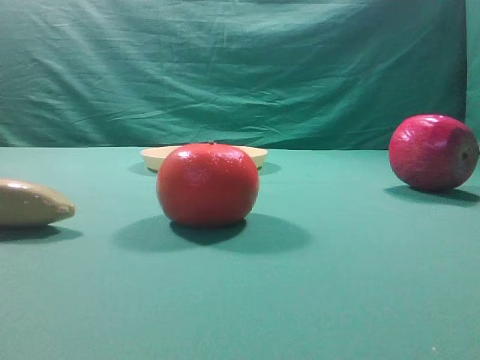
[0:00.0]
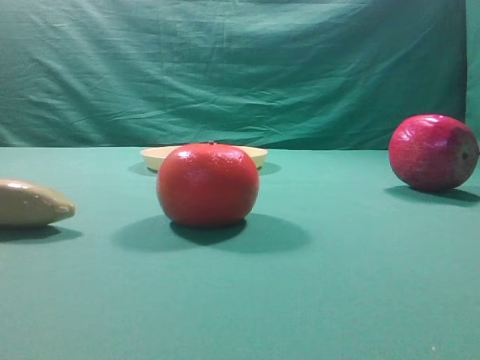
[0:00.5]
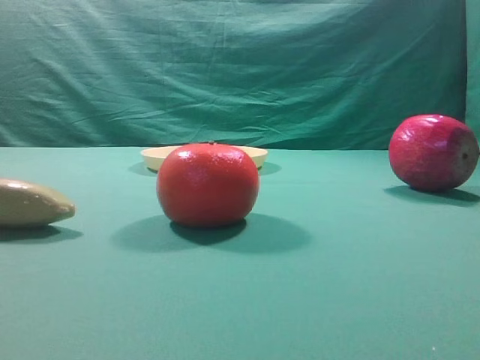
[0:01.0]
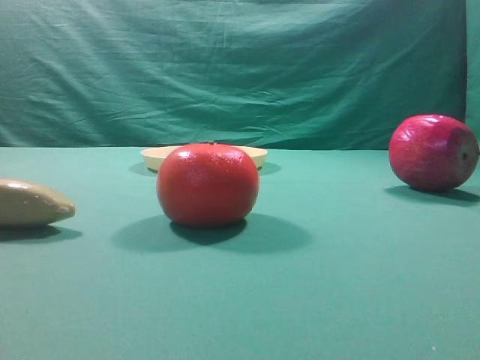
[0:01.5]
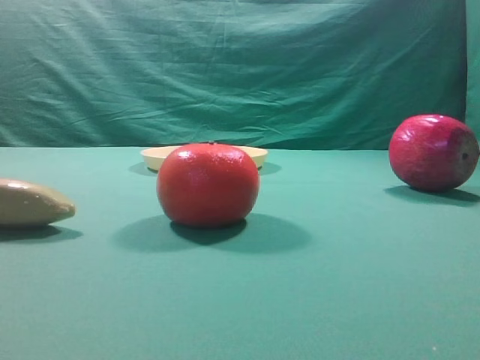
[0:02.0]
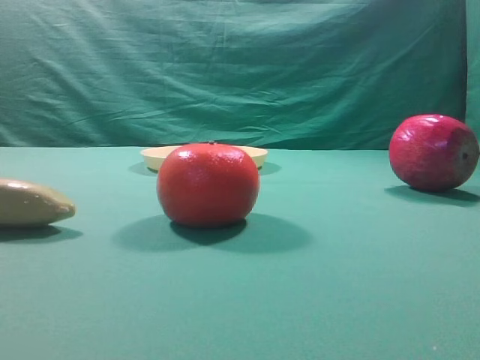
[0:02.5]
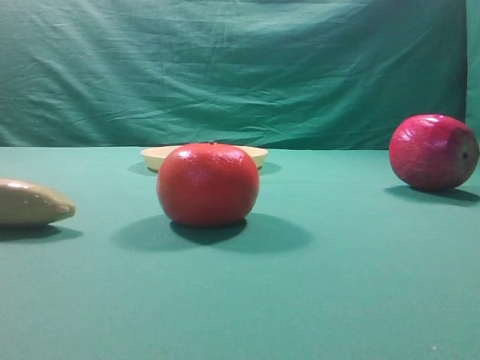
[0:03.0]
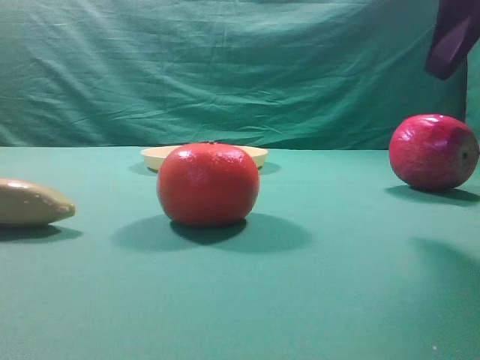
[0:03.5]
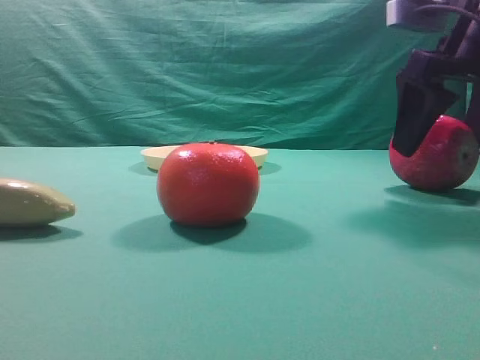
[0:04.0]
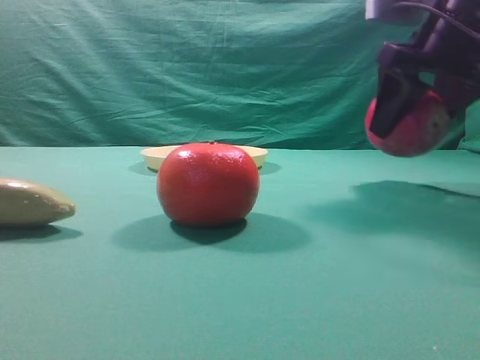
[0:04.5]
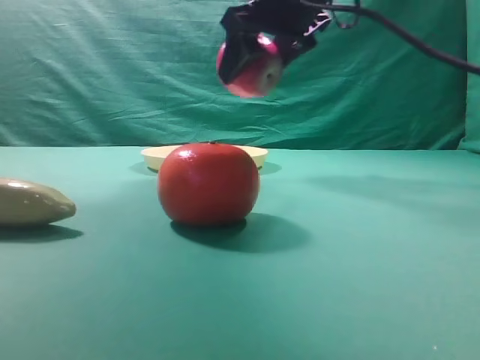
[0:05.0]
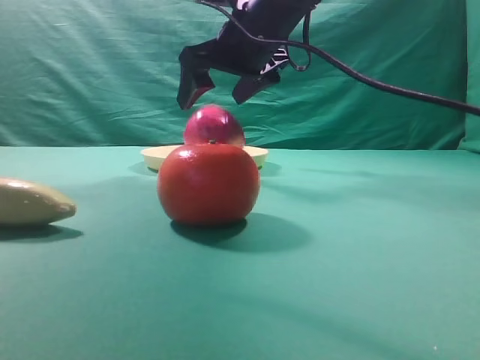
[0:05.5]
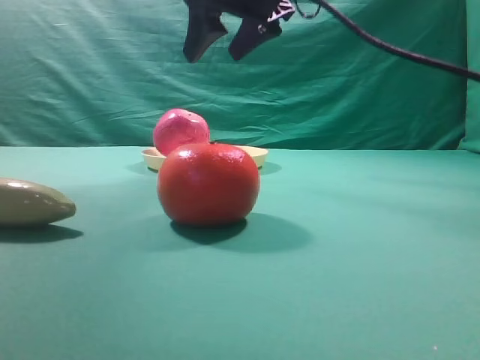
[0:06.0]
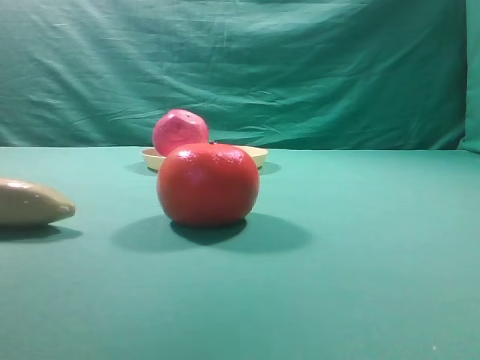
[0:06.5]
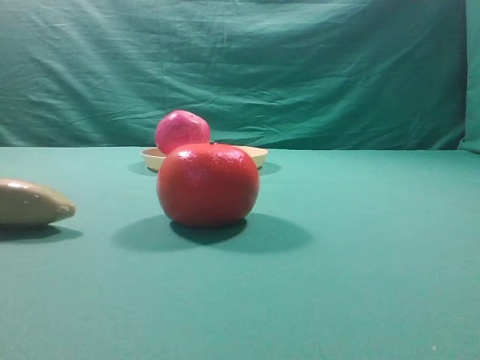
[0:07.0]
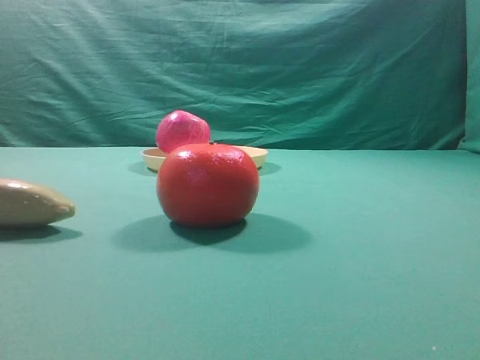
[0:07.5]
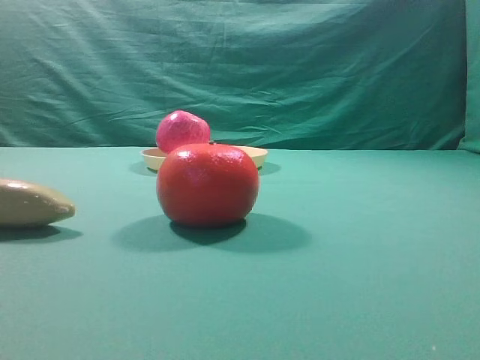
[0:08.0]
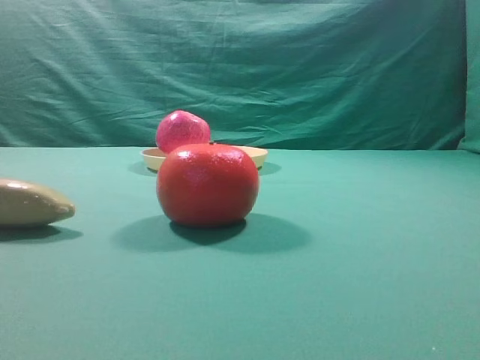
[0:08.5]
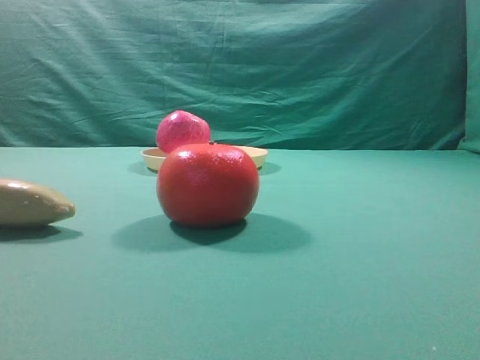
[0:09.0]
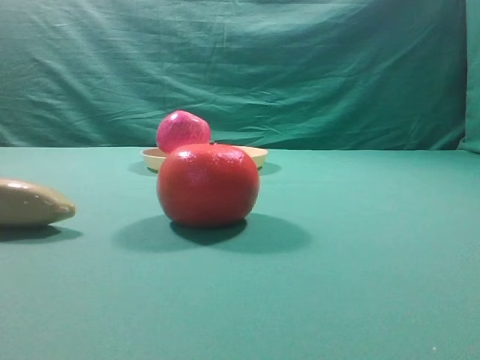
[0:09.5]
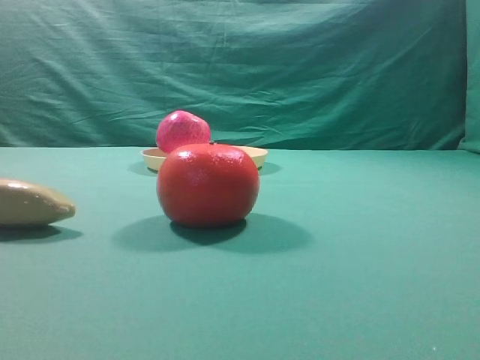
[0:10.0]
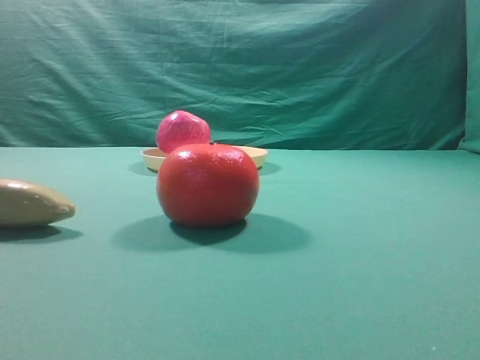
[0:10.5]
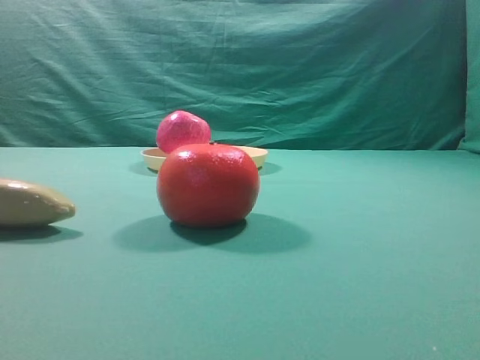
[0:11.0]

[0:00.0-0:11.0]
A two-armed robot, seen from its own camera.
Task of the whole recording: grasp the apple and place it into the yellow plate.
Step, 0:00.0 to 0:04.0: Grasp the fruit that can keep the doctor away.
Step, 0:05.0 to 0:05.5: Place the picked object into the yellow plate.

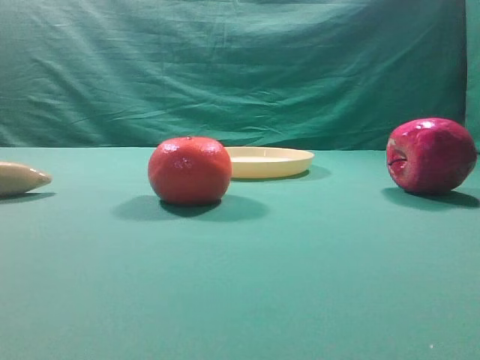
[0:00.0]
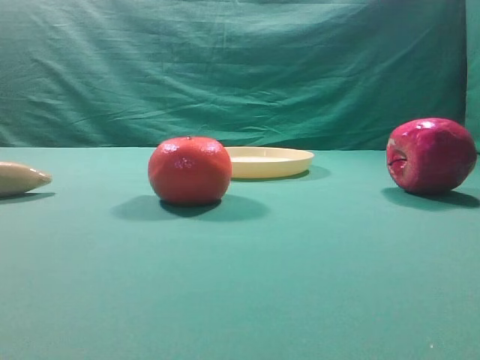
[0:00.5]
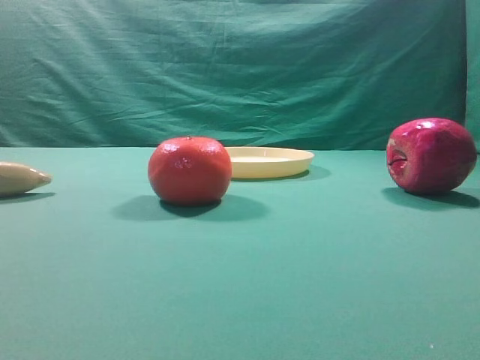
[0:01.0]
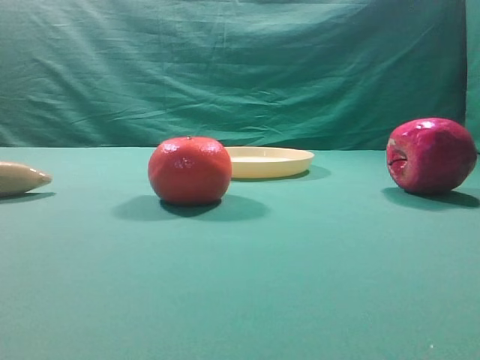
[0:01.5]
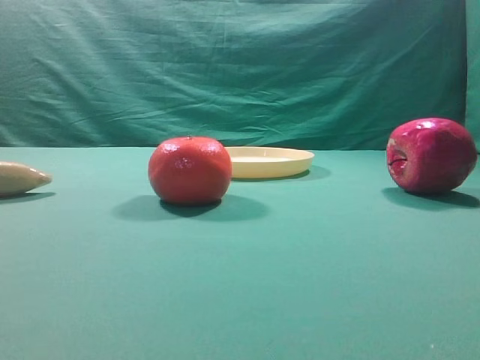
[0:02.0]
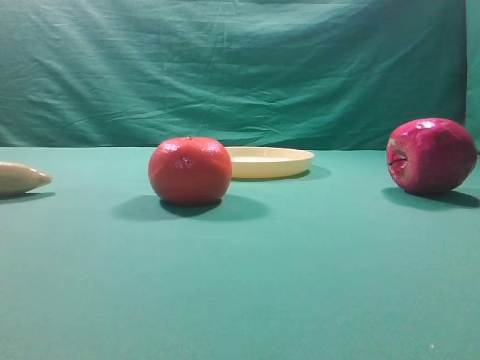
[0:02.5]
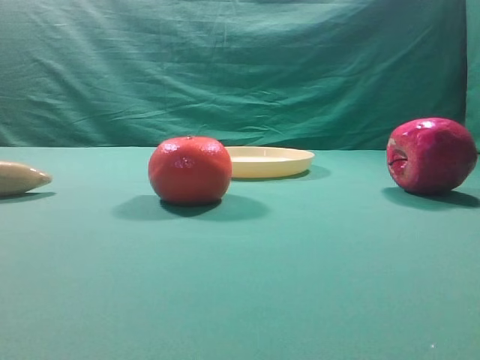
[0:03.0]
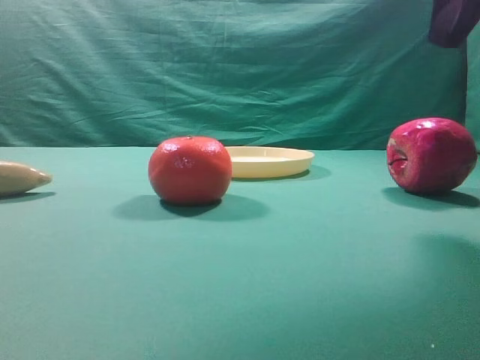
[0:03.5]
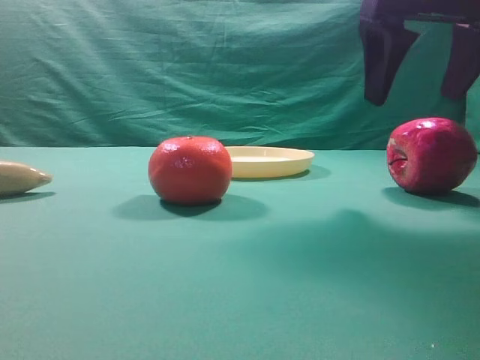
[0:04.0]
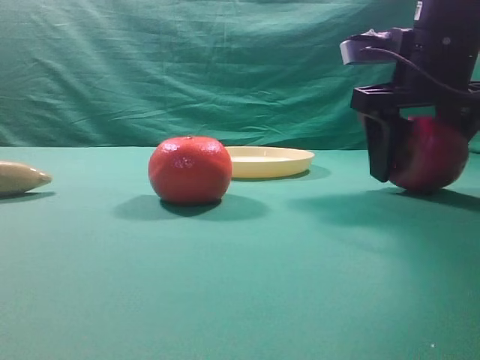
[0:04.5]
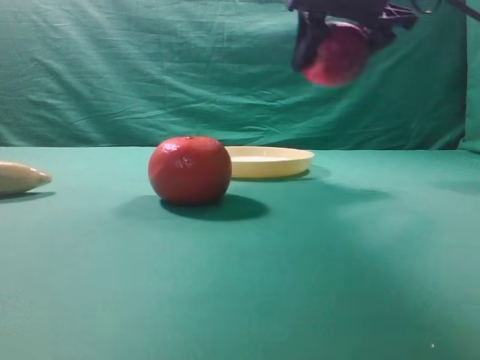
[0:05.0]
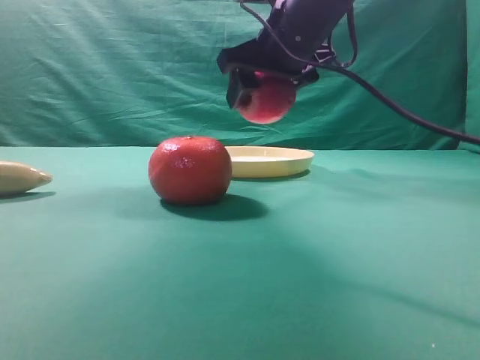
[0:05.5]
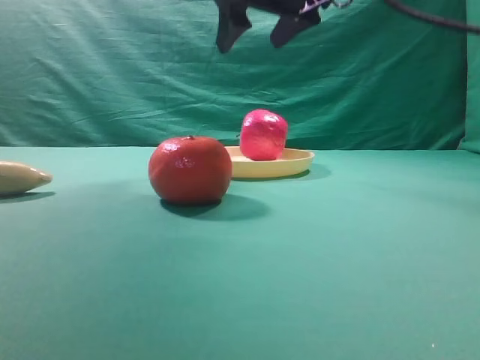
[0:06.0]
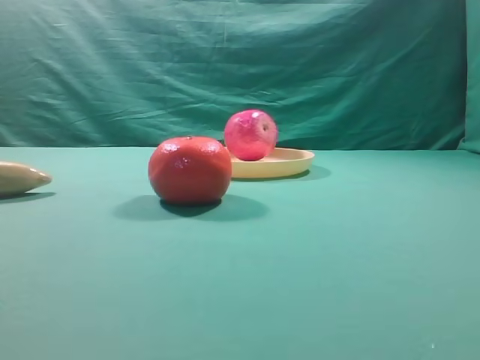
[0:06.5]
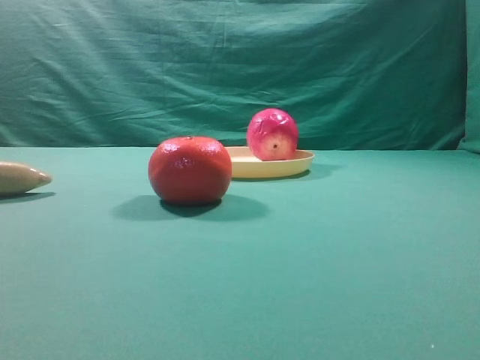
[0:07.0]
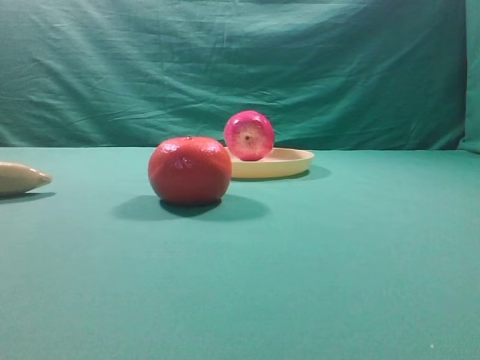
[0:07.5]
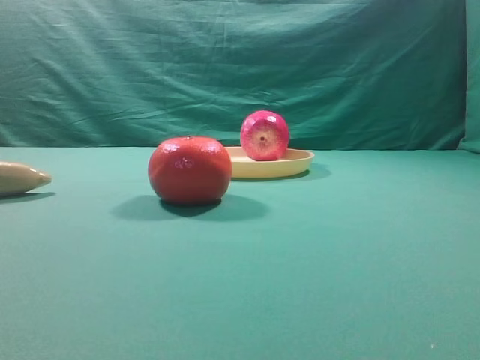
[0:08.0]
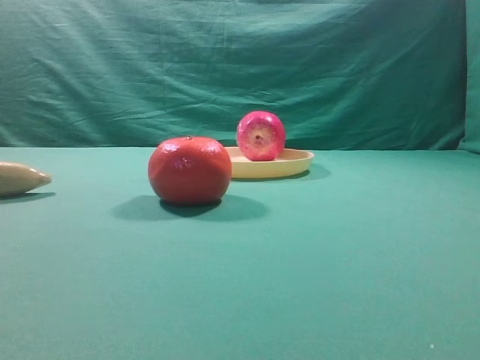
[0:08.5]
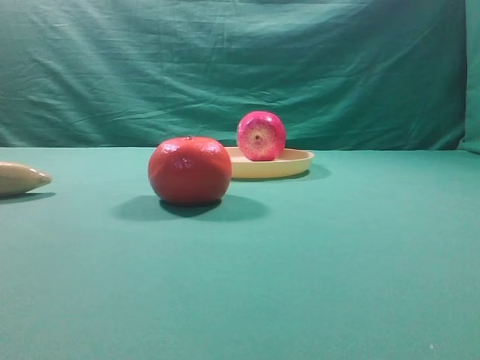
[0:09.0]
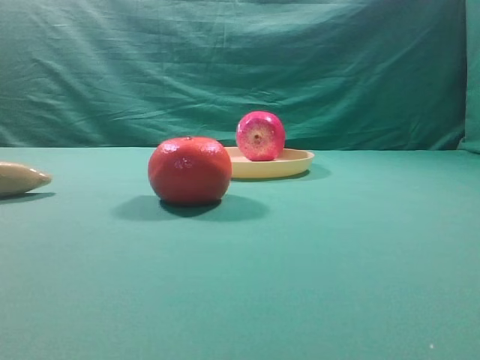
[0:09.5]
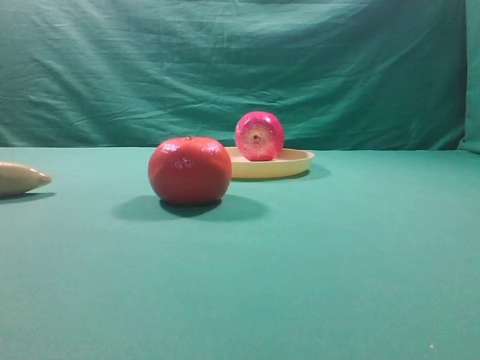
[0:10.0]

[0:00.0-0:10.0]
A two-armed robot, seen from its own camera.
Task of the whole recording: grasp the apple and place it into the yellow plate.
Step, 0:00.0 to 0:04.5: Grasp the fruit that can keep the doctor away.
Step, 0:05.0 to 0:05.5: Place the picked object into the yellow plate.

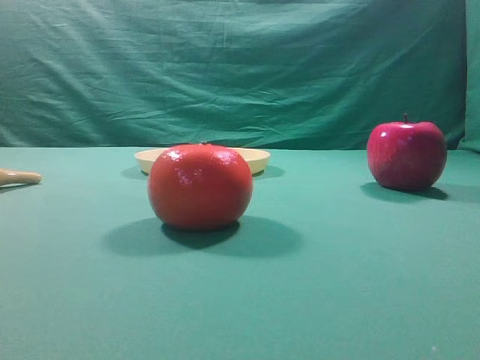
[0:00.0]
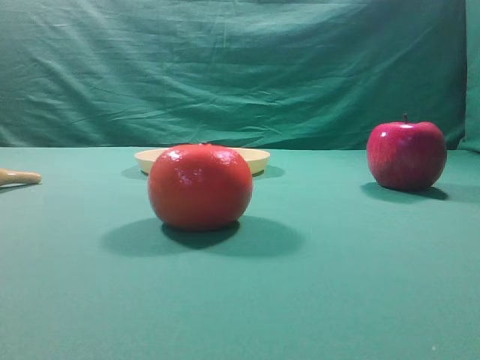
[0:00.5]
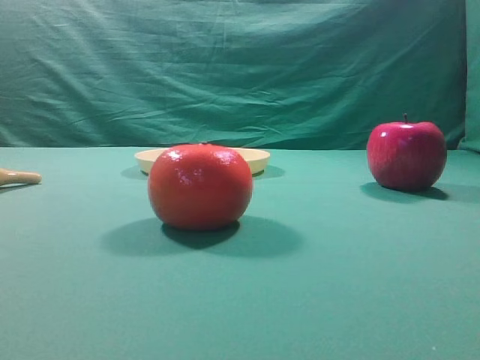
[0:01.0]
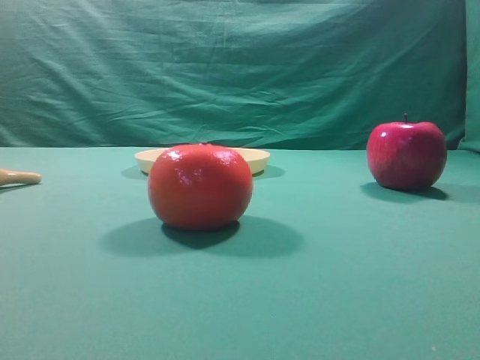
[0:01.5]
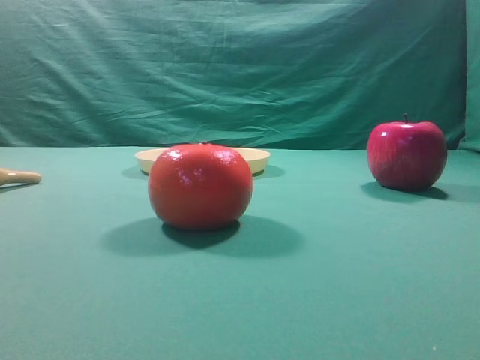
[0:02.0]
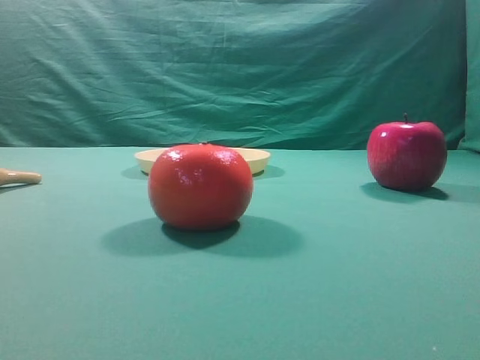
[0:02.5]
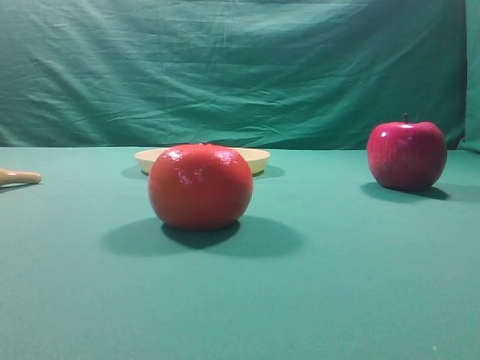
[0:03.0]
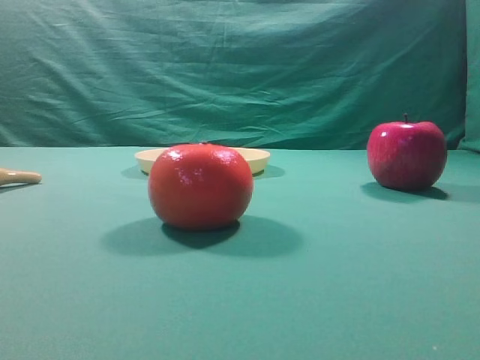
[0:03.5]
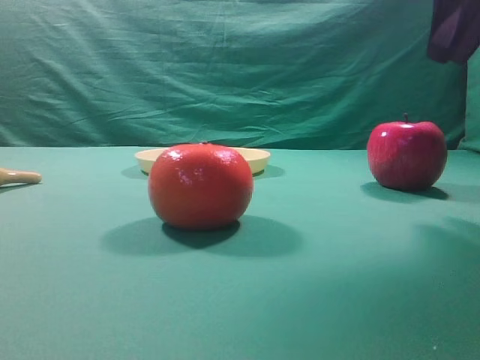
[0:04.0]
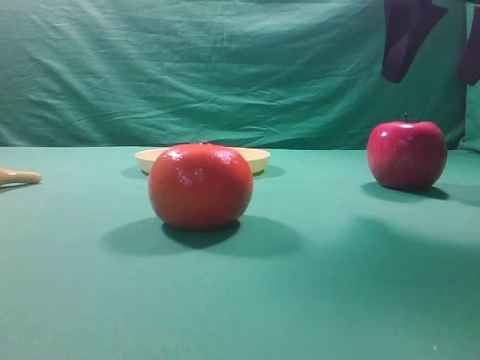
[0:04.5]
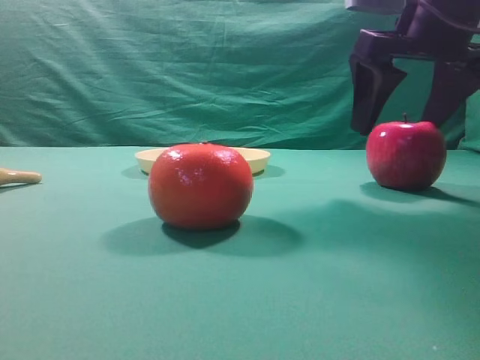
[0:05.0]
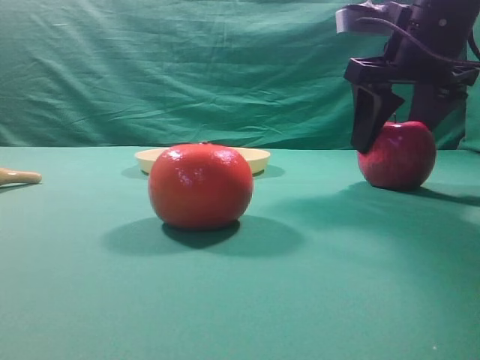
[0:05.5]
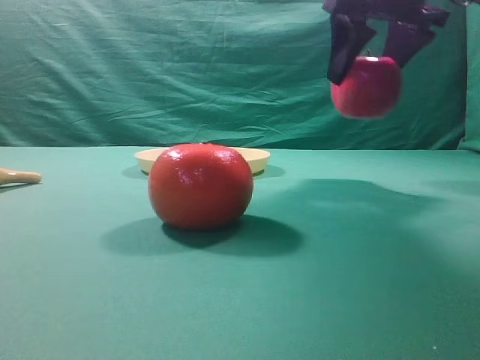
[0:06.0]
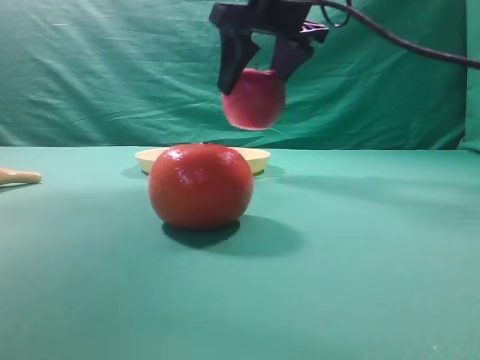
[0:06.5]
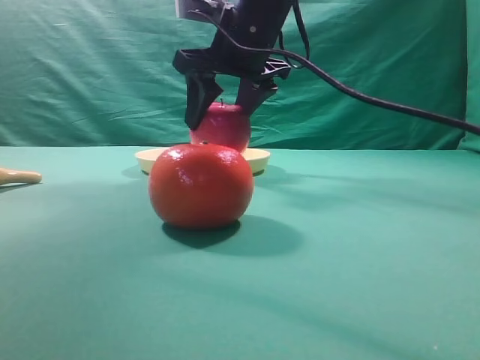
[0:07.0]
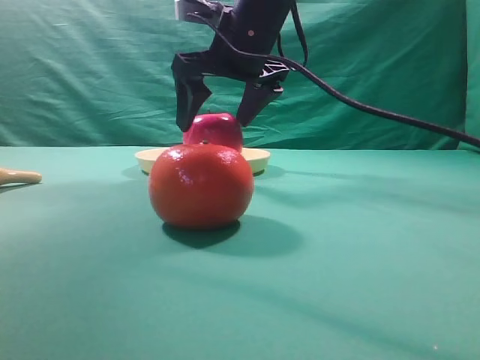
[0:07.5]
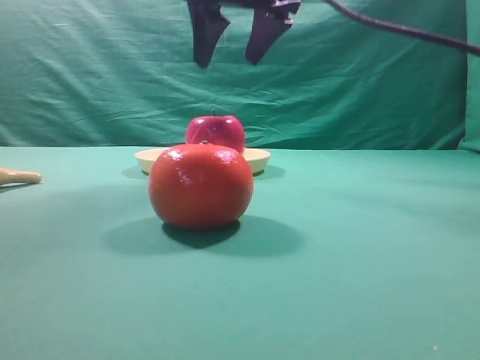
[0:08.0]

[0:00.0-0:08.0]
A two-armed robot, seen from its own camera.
Task of the whole recording: grasp the apple and place it into the yellow plate.
Step, 0:00.0 to 0:05.5: Grasp the fruit that can keep the doctor away.
Step, 0:06.0 to 0:06.5: Place the picked object into the yellow plate.
